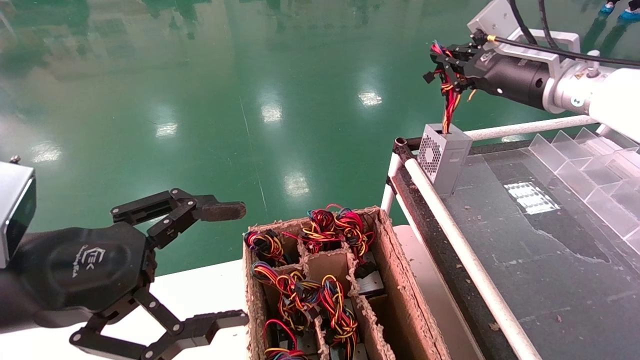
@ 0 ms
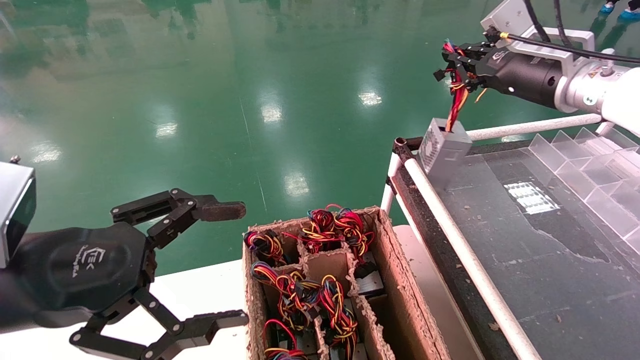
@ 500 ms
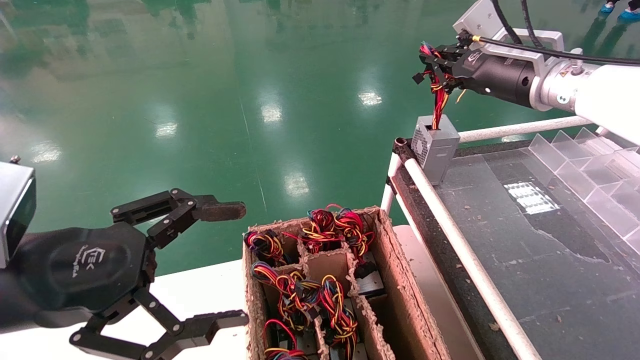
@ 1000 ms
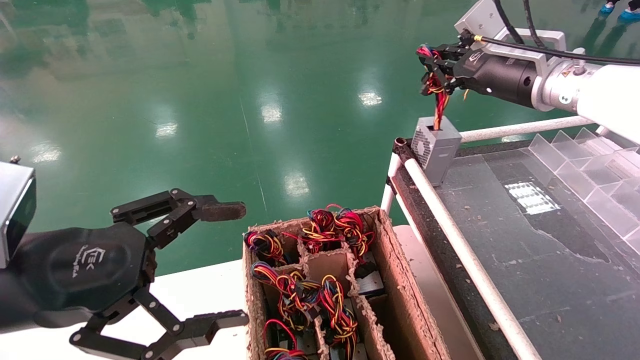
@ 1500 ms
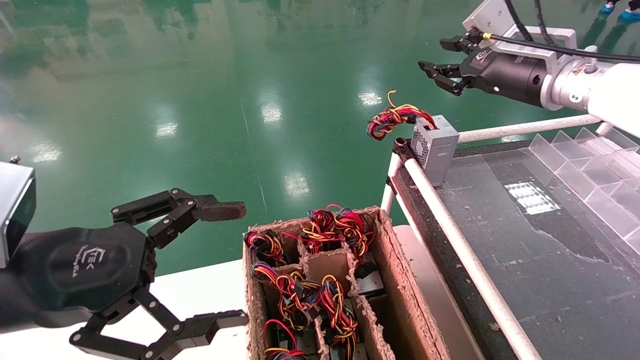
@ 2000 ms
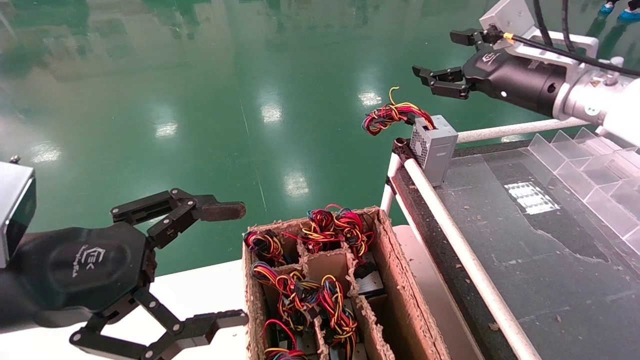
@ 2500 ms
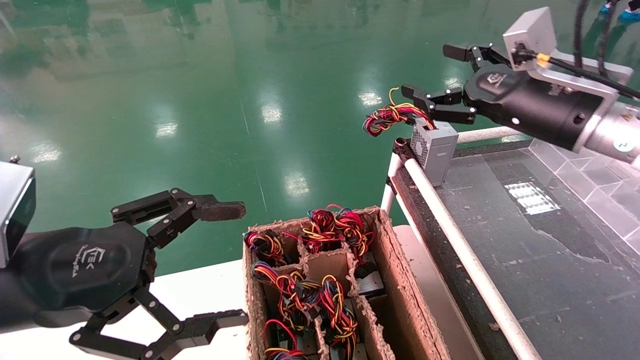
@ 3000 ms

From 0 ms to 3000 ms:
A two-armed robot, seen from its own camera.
From 0 ms to 1500 ms: There are only small adjustments of the grippers.
From 1500 ms to 3000 ms: The right gripper shifts approximately 5 cm backward, and opens up.

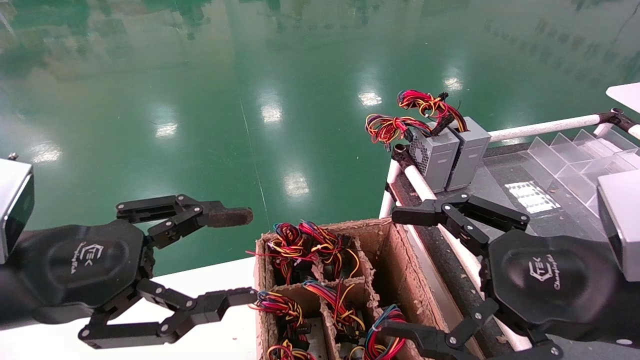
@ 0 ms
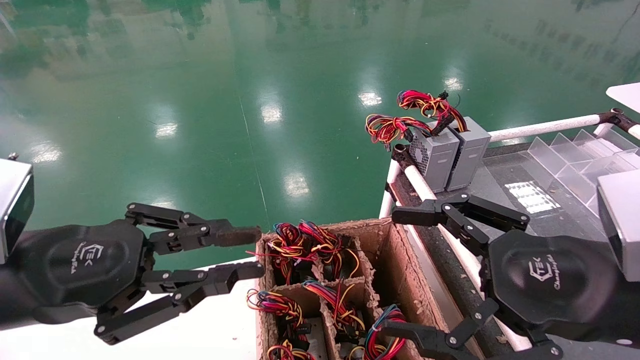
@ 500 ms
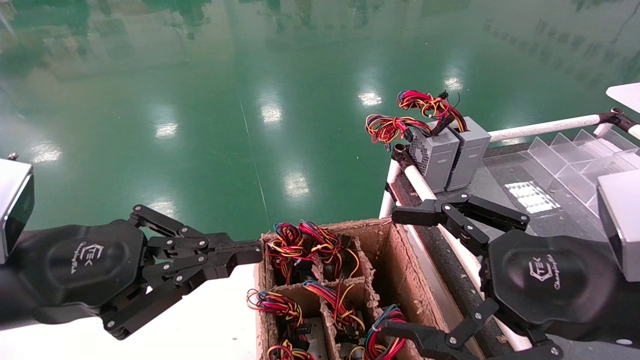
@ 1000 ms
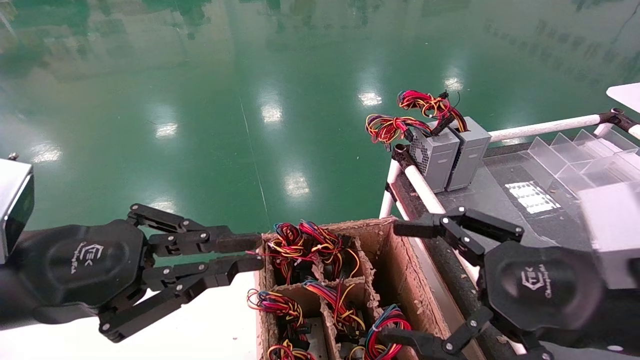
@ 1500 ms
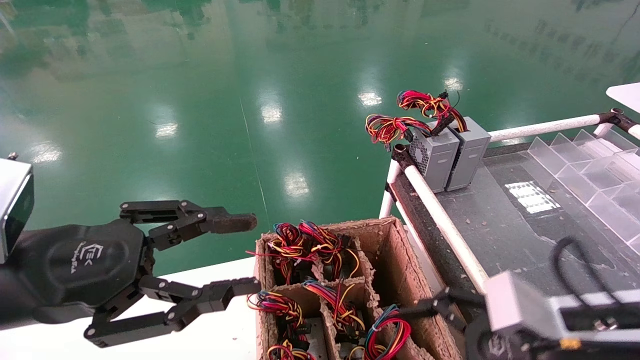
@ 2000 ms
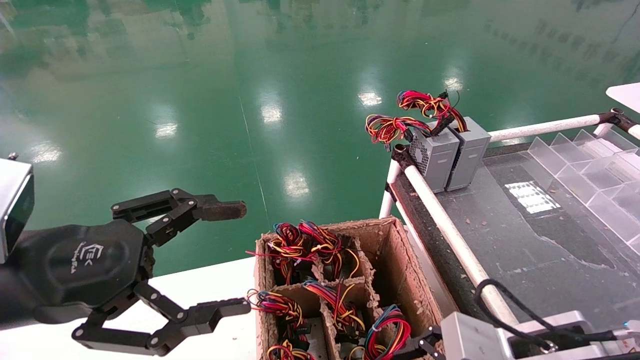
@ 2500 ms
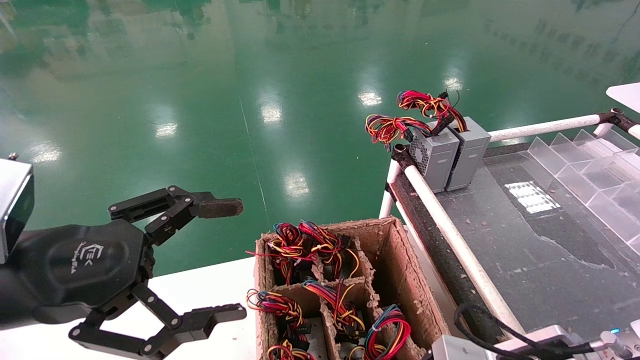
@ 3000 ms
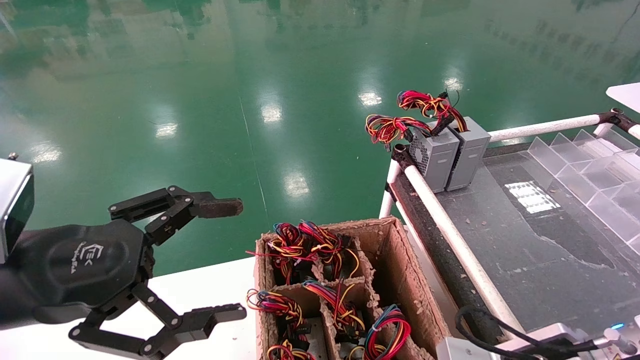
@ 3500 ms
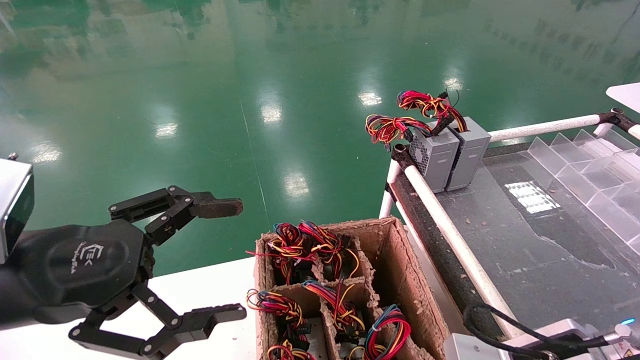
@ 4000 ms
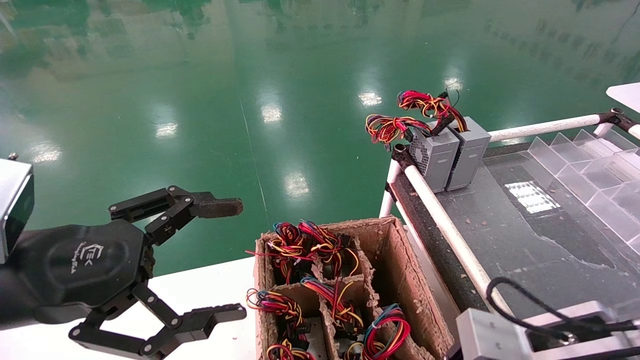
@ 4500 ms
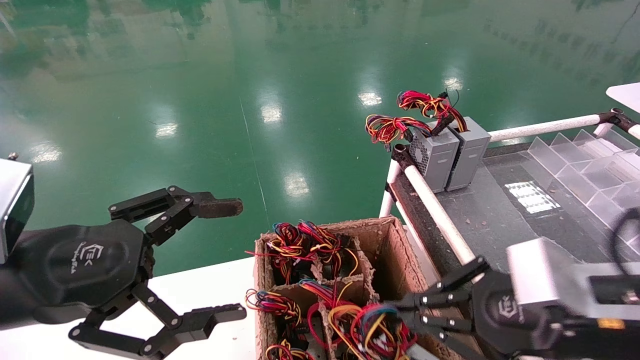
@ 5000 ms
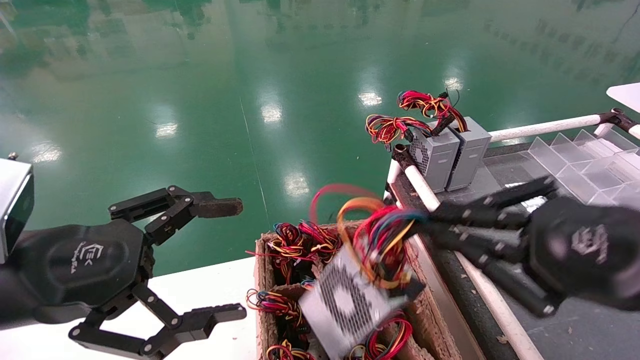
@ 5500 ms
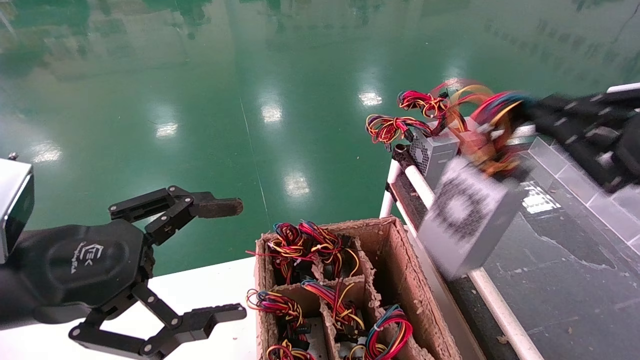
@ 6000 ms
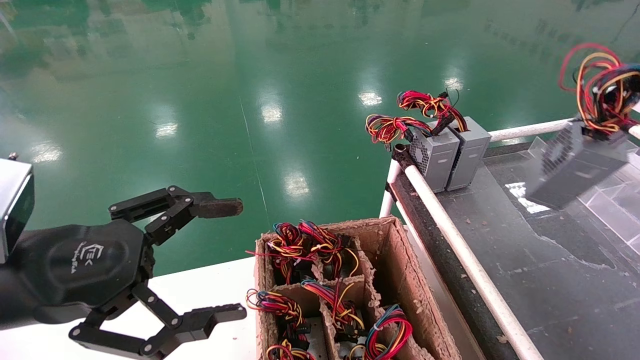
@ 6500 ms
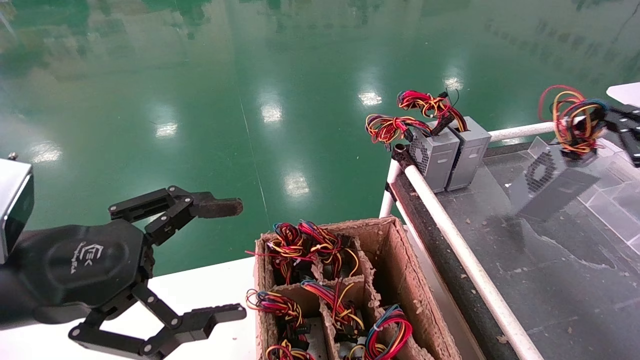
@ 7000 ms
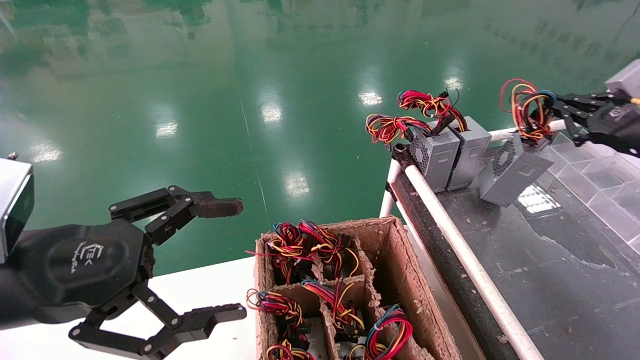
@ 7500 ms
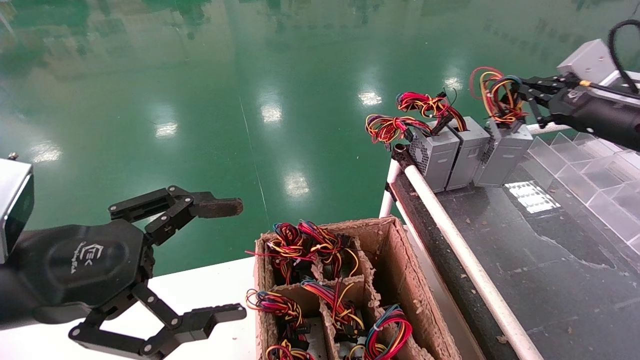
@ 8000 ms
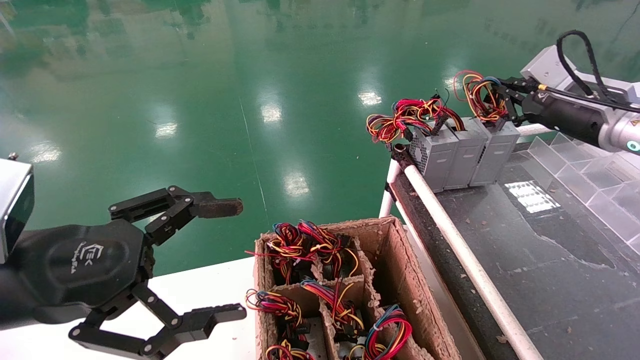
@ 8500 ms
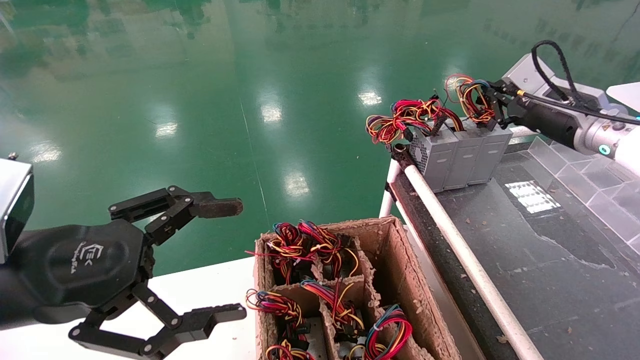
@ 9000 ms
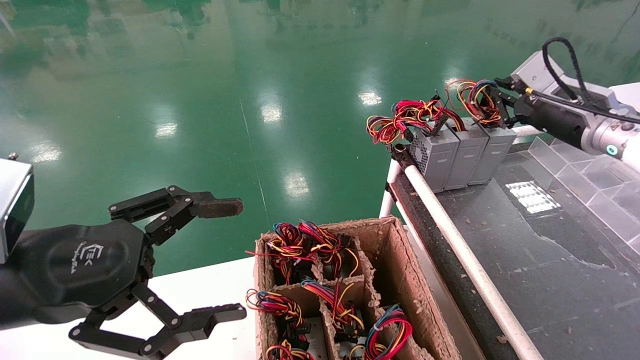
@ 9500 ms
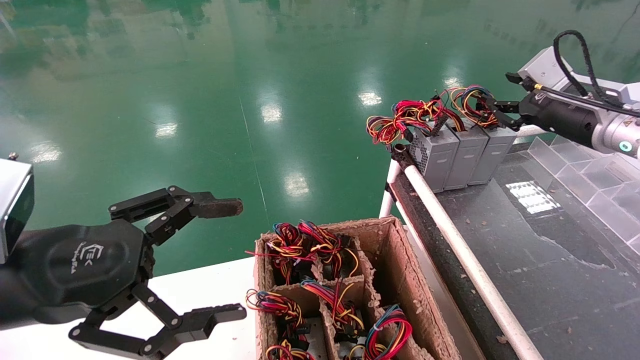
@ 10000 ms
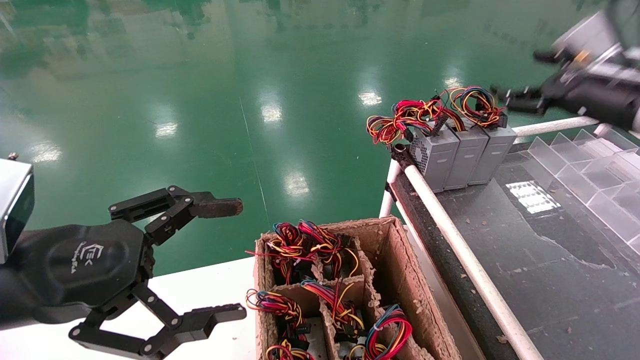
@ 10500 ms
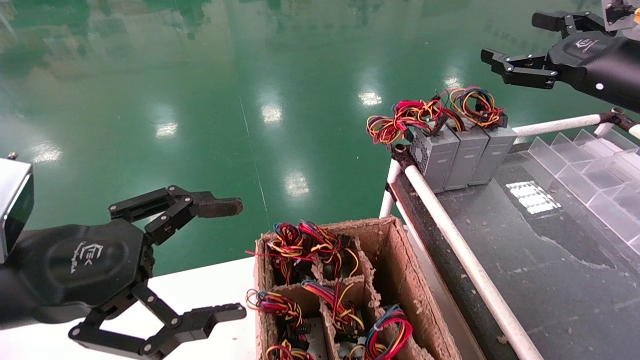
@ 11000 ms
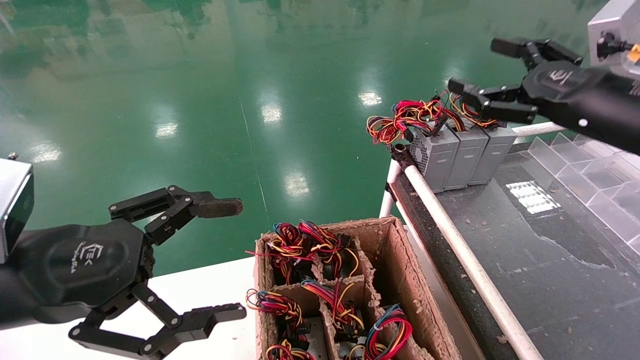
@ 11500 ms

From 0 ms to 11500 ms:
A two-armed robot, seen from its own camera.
Step, from 1000 ms to 5000 ms: Grab and lift the power supply from the large box.
Step, from 5500 ms to 9500 ms: Place the power supply on the operating table.
From 0 ms to 2000 ms: The right gripper moves downward, approximately 5 cm.
From 2000 ms to 4000 ms: The left gripper opens its fingers; the right gripper closes up.
From 4000 ms to 6000 ms: The right gripper shifts approximately 20 cm upward and to the right.
From 6000 ms to 7500 ms: The right gripper goes approximately 20 cm forward and to the right.
From 7500 ms to 9500 ms: The right gripper is displaced to the left and forward by about 10 cm.
From 9500 ms to 11500 ms: The right gripper travels backward by about 10 cm, and opens up.

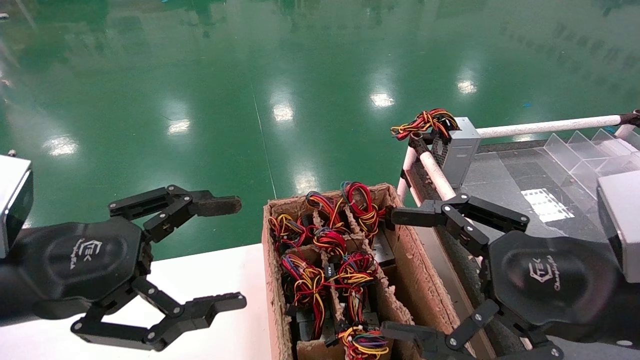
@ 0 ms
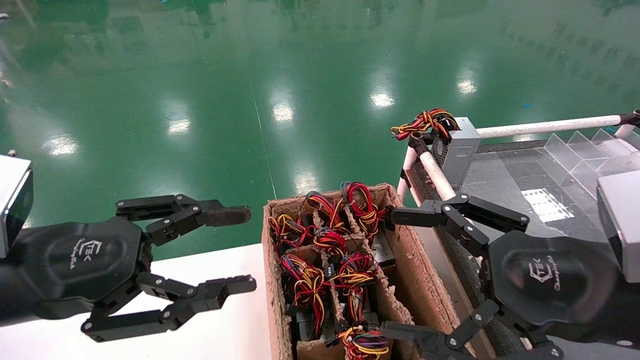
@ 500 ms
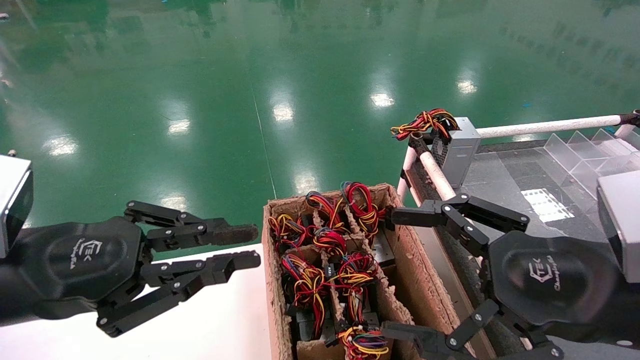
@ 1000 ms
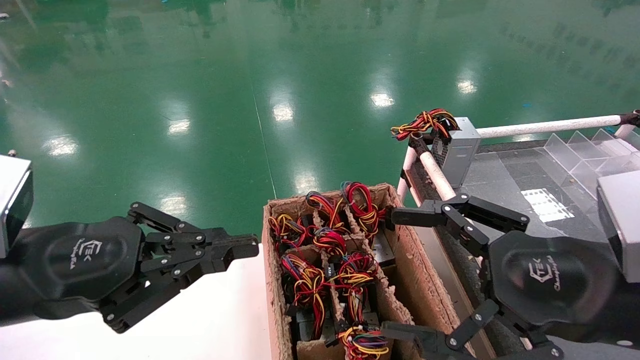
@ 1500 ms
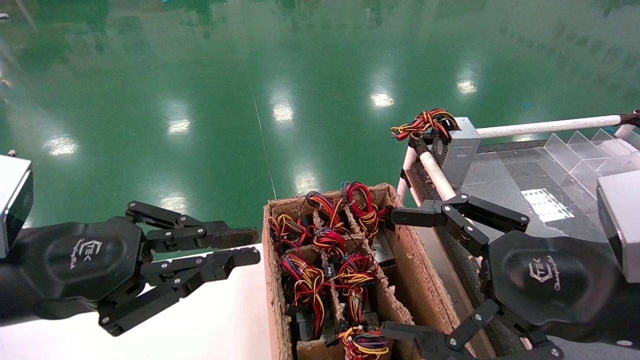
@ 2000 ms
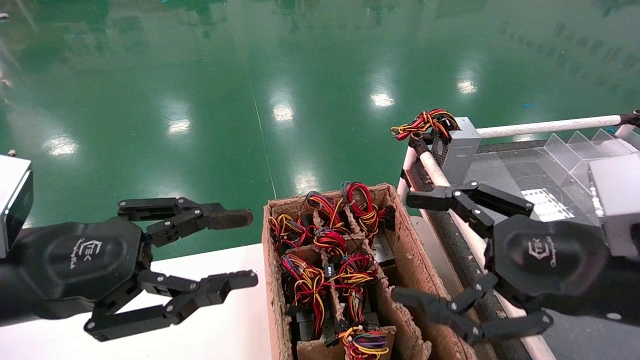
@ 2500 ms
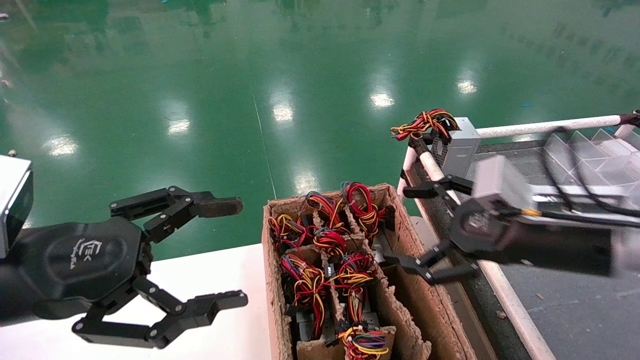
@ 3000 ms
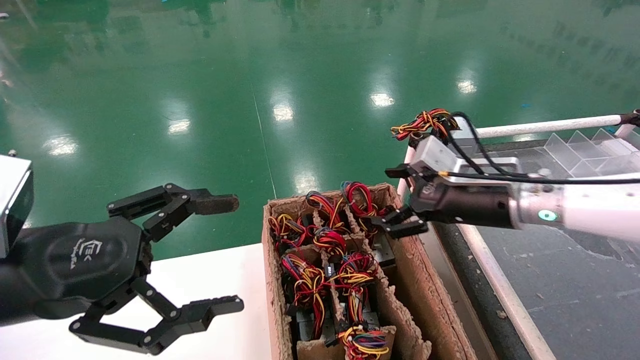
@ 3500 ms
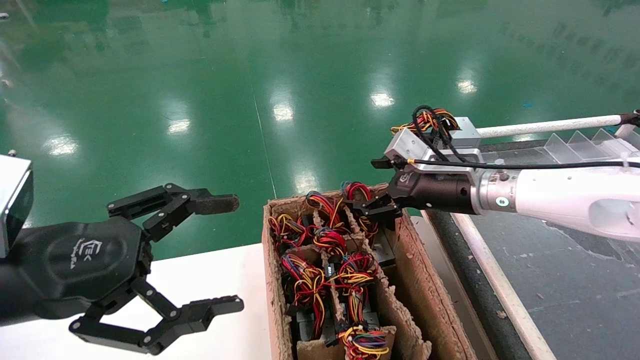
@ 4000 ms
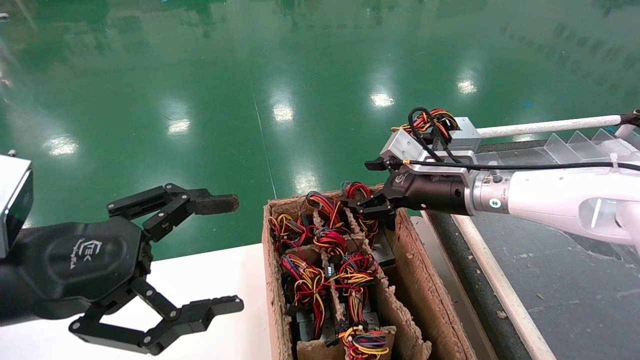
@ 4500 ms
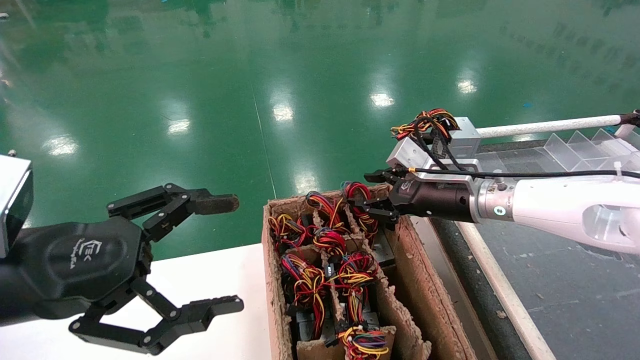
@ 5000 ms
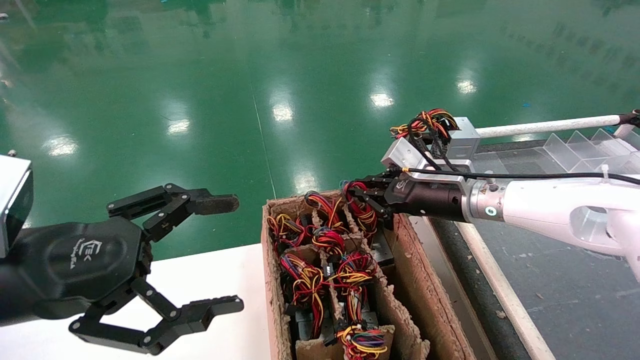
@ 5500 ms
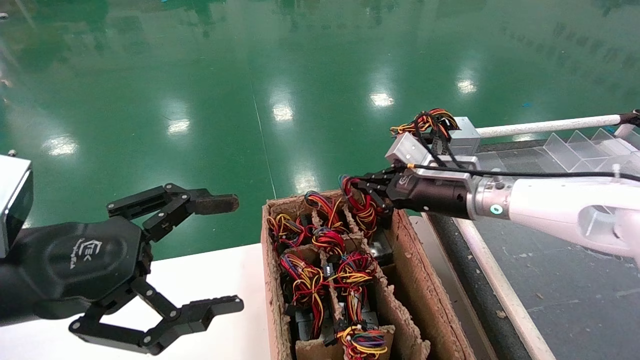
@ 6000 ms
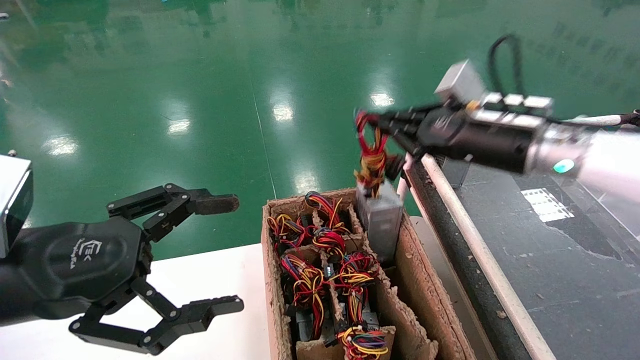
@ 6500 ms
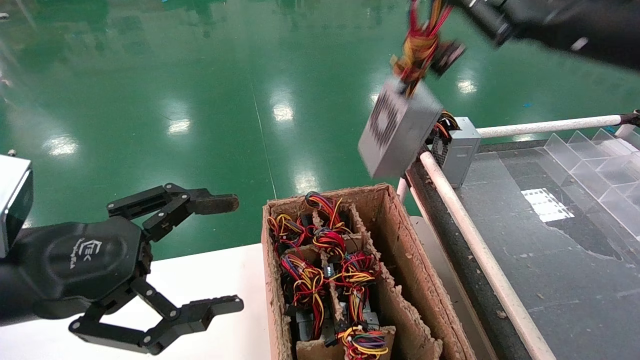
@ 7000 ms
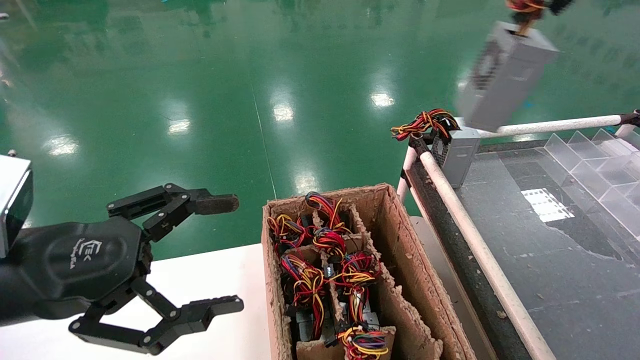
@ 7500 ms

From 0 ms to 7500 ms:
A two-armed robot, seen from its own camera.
Step, from 500 ms to 5500 ms: Grab and lift the power supply from the large box.
From 0 ms to 2000 ms: The left gripper closes.
From 2000 ms to 4000 ms: The left gripper opens. Meanwhile the right gripper heads forward, covering some 25 cm.
From 4000 ms to 5500 ms: The right gripper closes up.
From 5500 ms to 7500 ms: The right gripper goes roughly 35 cm upward, to the right and backward.
